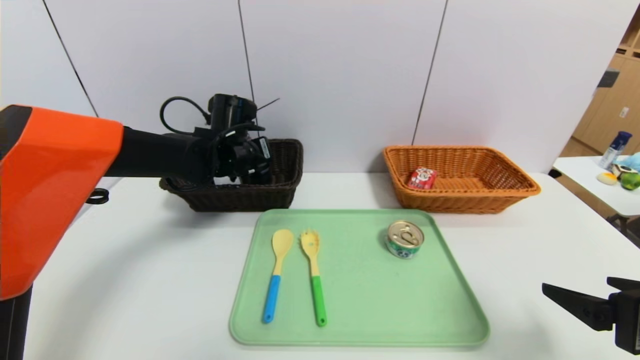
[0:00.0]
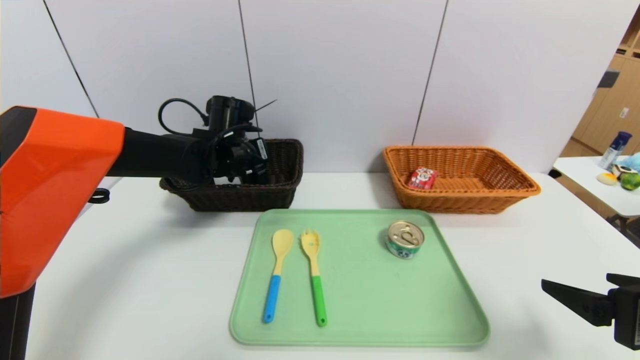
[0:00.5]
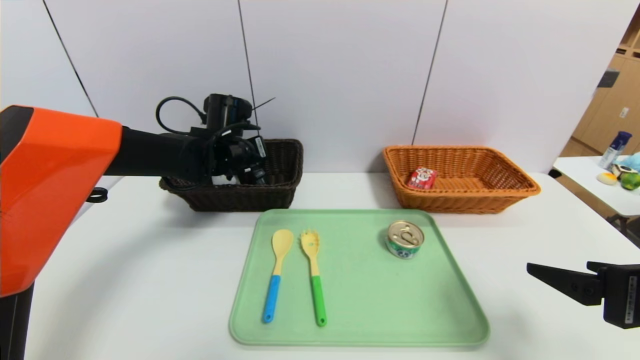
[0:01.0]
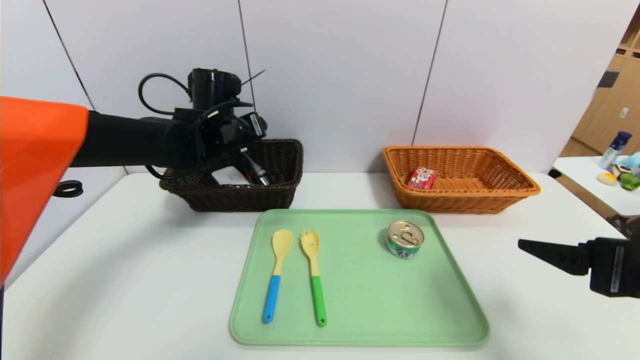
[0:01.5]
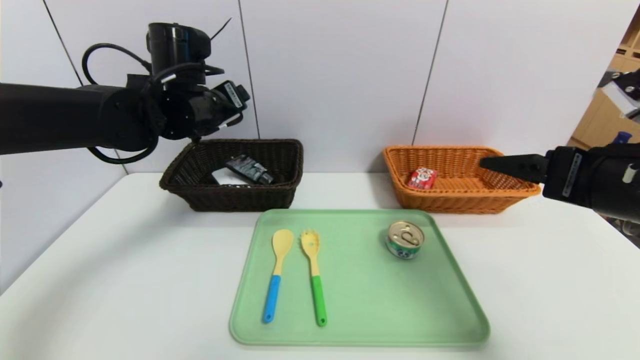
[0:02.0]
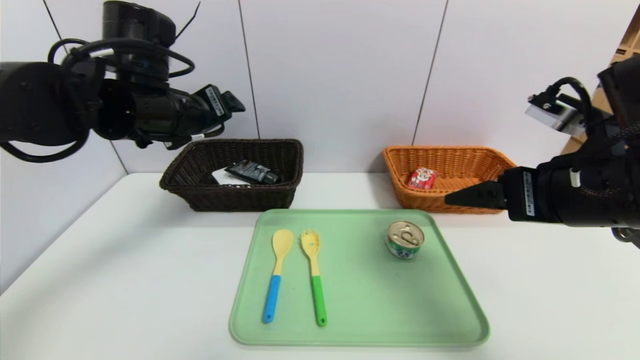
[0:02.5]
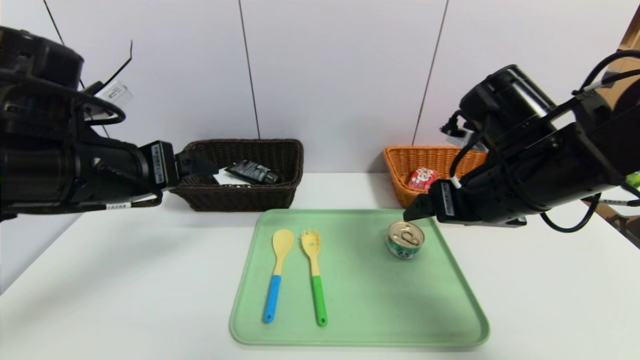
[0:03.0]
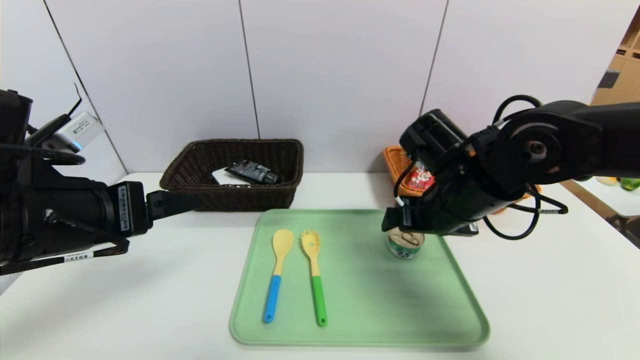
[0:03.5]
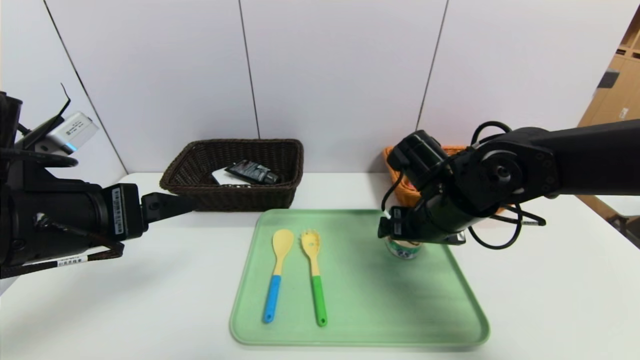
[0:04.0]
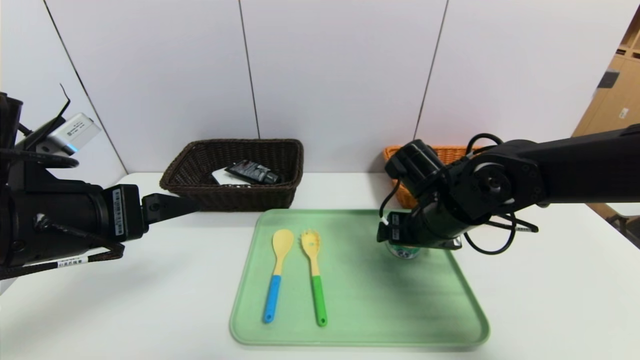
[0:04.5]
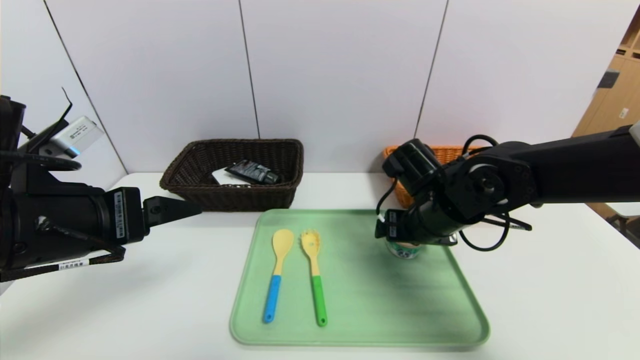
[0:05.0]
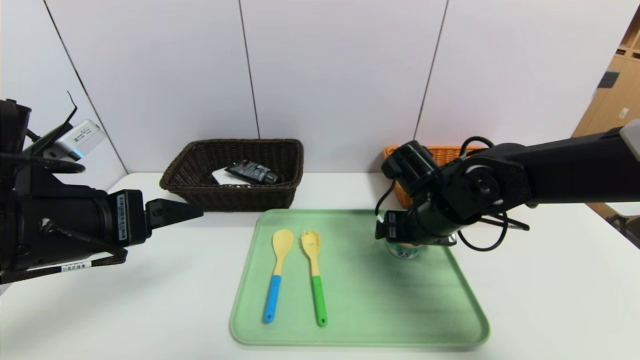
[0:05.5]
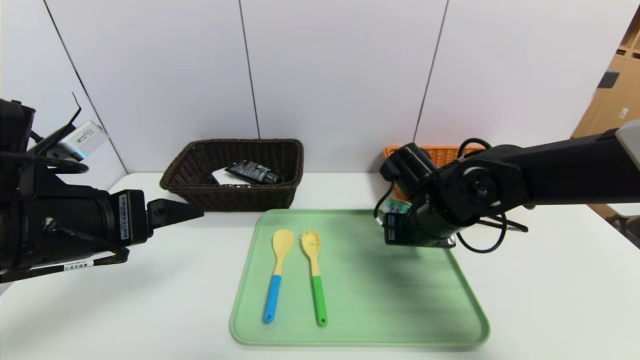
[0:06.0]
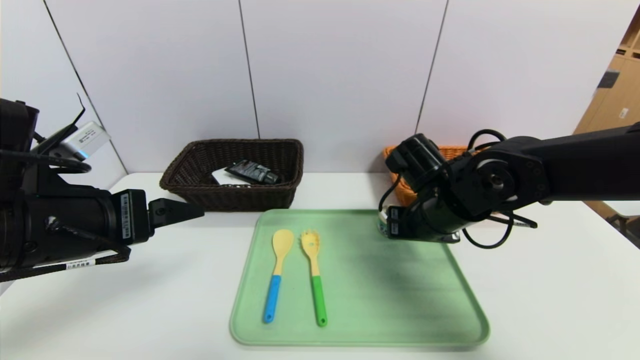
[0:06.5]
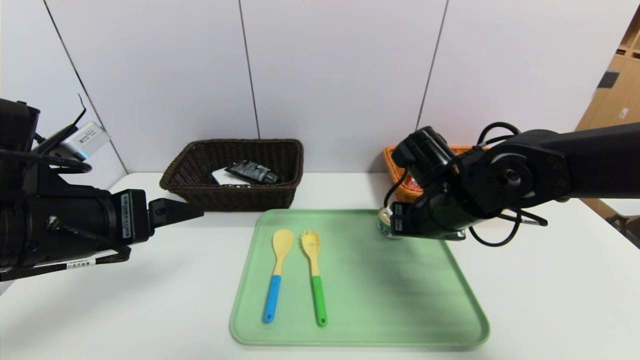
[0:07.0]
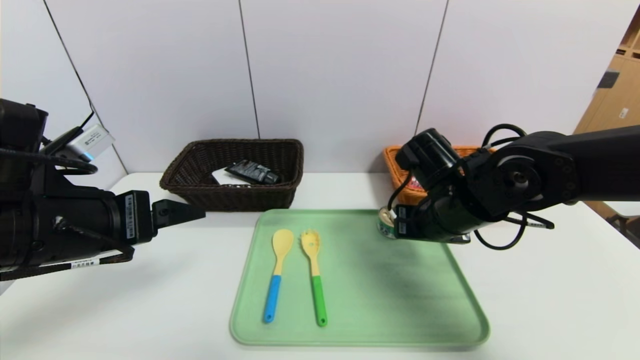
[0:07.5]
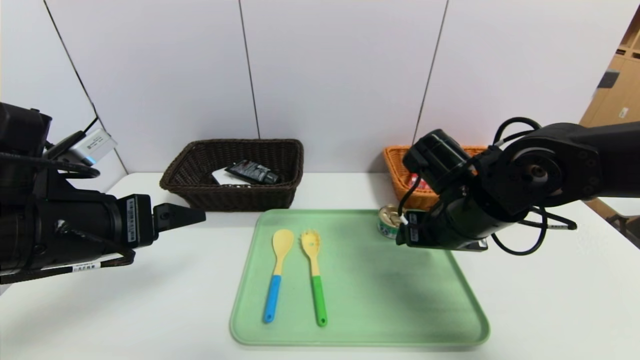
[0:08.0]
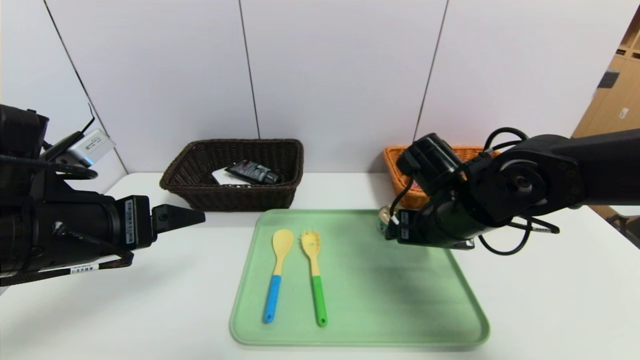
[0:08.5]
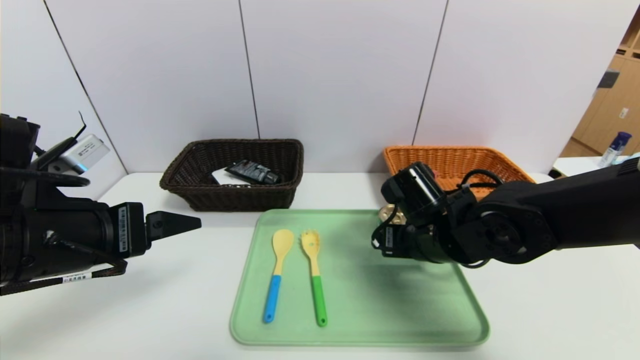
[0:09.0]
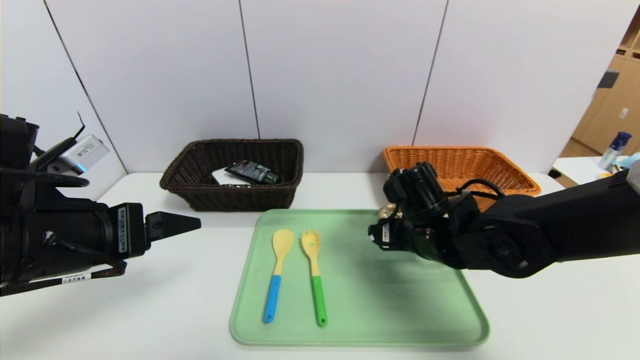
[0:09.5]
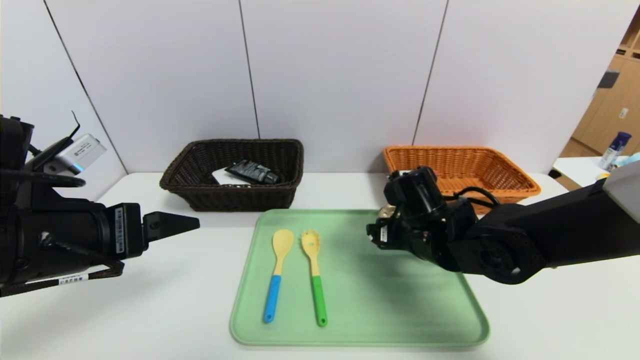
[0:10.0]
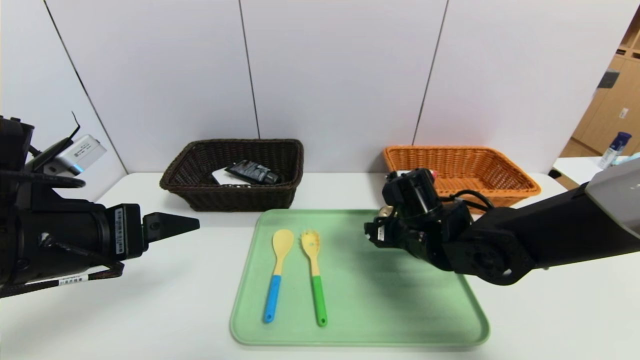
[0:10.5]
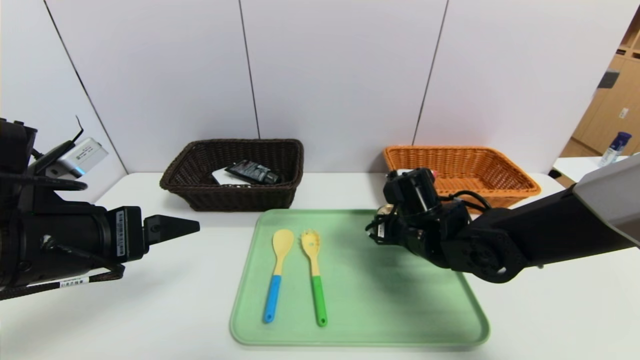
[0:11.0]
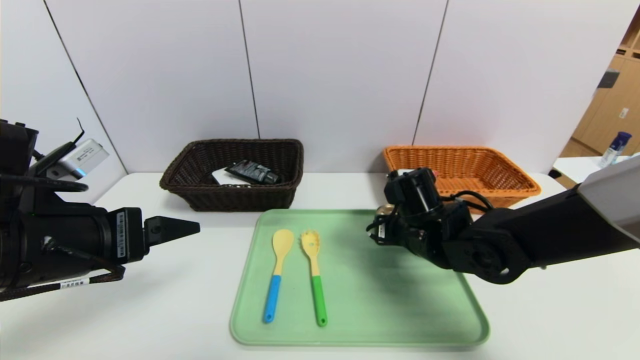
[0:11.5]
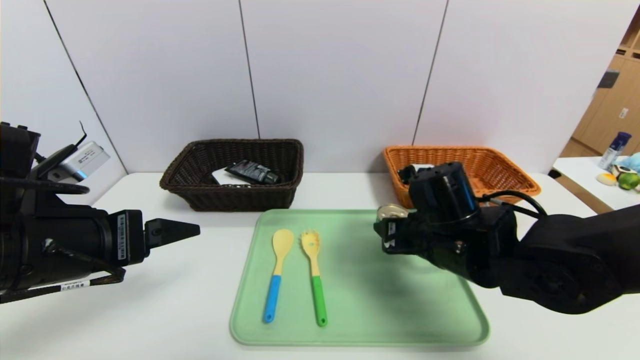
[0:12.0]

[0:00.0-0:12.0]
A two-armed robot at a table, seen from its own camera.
Task of the whole recording: place the food in the right basket with the right gripper, and place the non food items in the left basket with the left gripper.
0:00.0 to 0:02.0: The right gripper is displaced forward and upward by some 10 cm, while the left gripper heads upward and backward, covering some 10 cm, and opens up.
0:02.0 to 0:04.0: The left gripper heads backward, covering roughly 20 cm. Meanwhile the right gripper goes some 20 cm to the left, forward and downward.
0:04.0 to 0:06.0: The right gripper closes up.
0:06.0 to 0:08.0: The right gripper opens its fingers.
0:08.0 to 0:10.0: The right gripper is displaced downward by approximately 5 cm.
0:10.0 to 0:12.0: The right gripper closes its fingers.

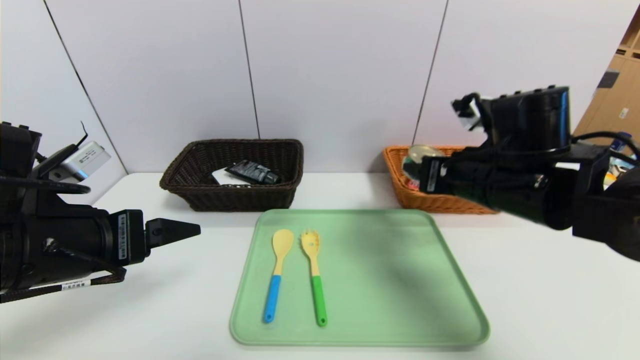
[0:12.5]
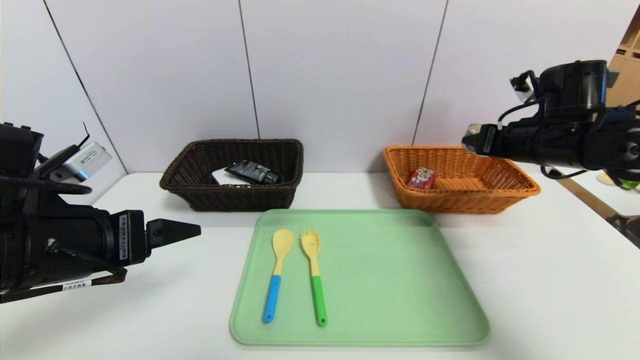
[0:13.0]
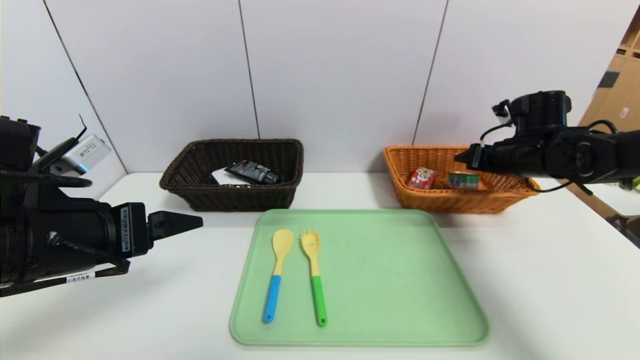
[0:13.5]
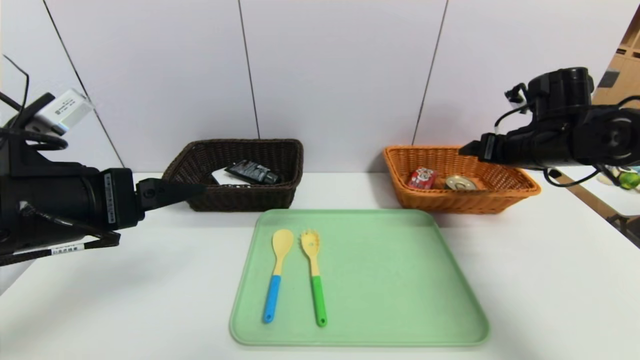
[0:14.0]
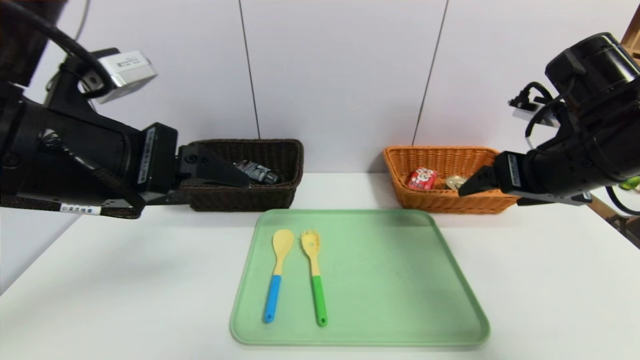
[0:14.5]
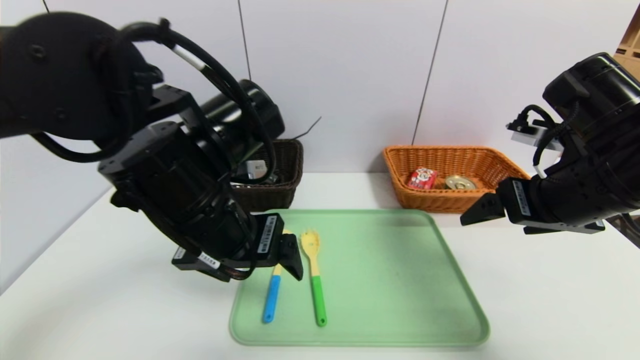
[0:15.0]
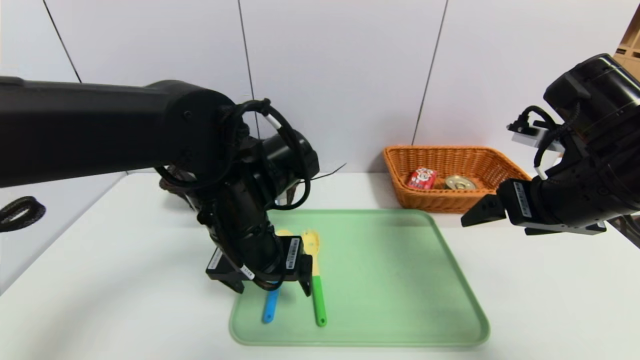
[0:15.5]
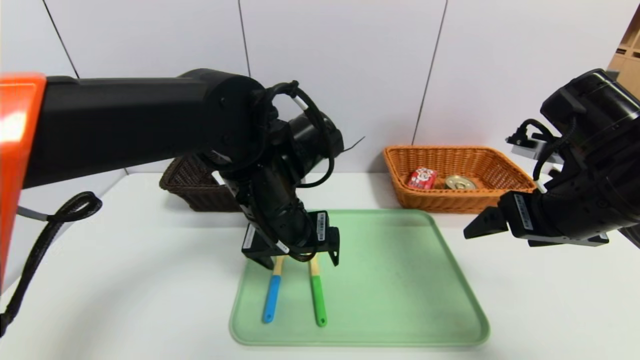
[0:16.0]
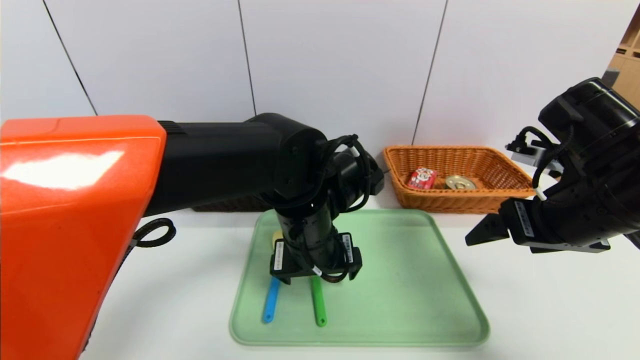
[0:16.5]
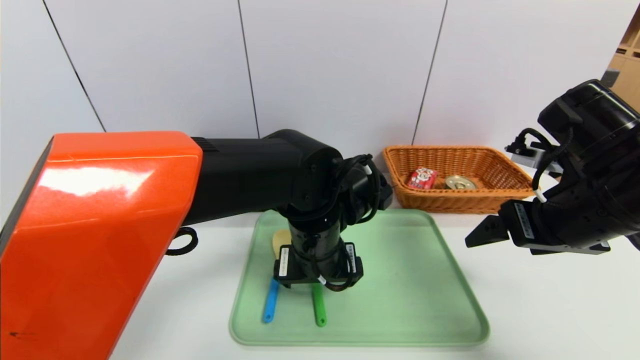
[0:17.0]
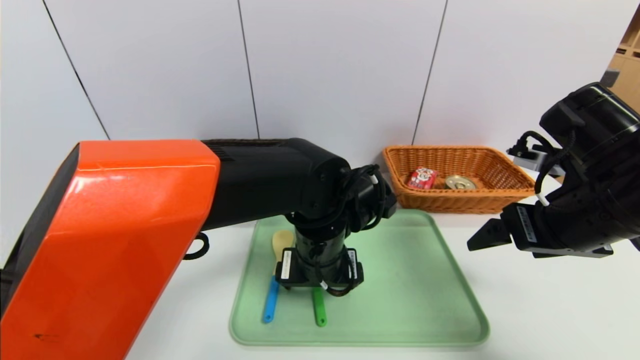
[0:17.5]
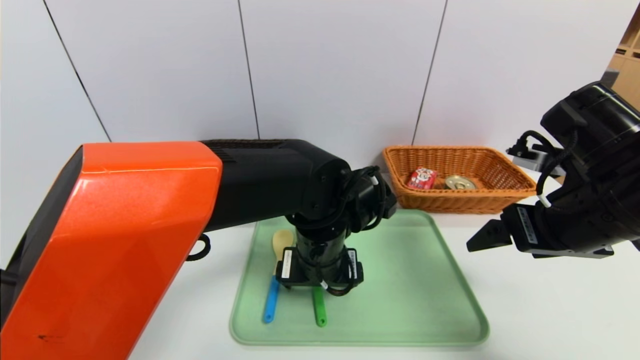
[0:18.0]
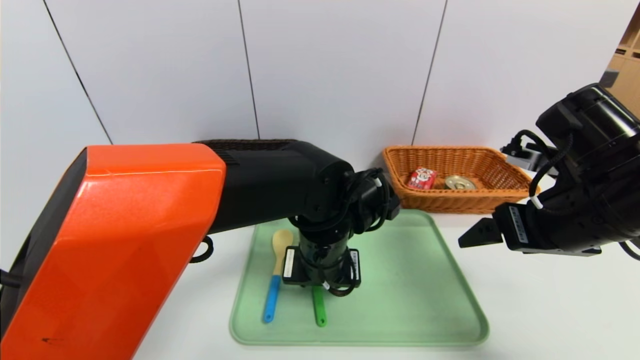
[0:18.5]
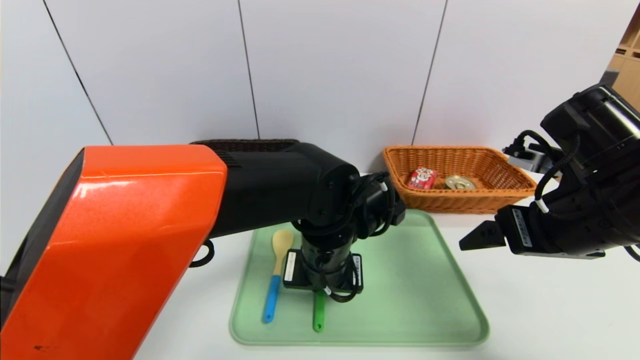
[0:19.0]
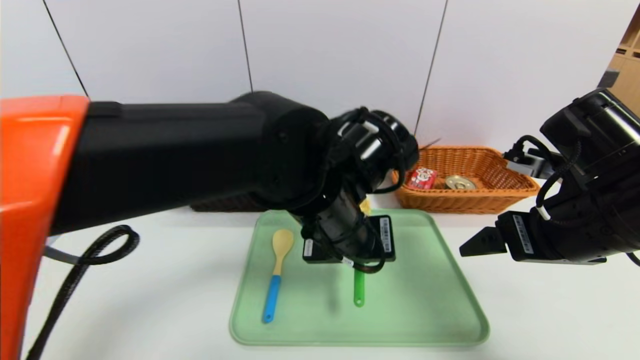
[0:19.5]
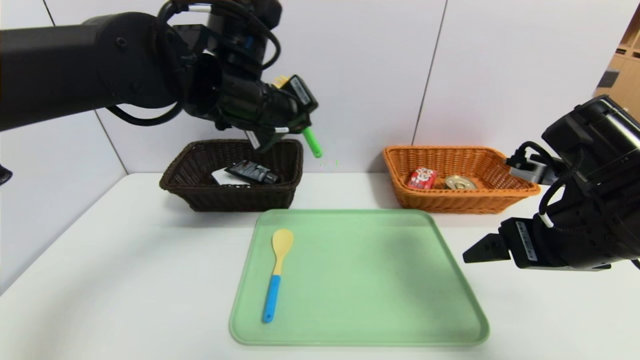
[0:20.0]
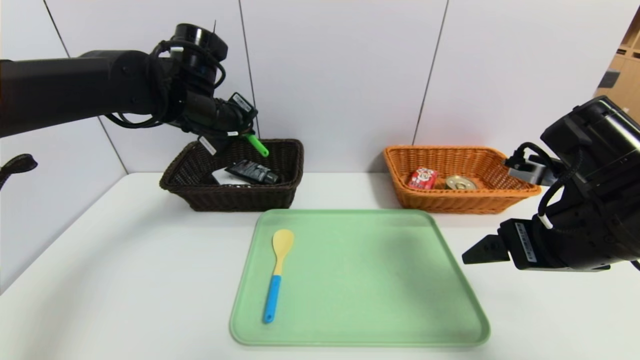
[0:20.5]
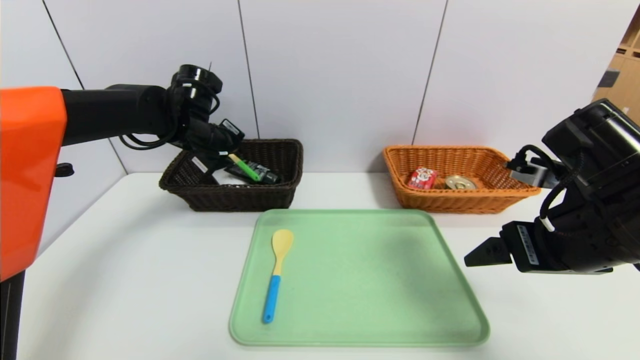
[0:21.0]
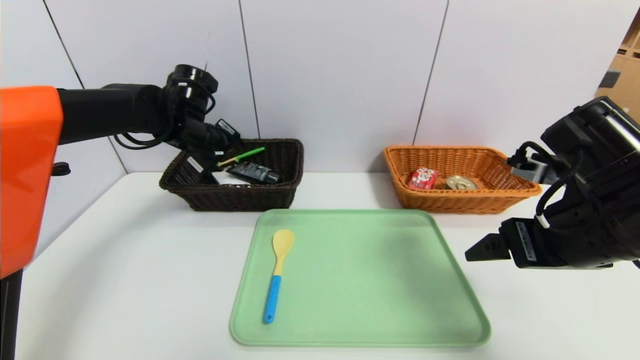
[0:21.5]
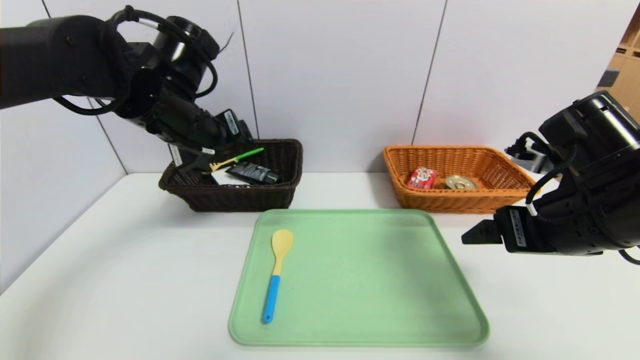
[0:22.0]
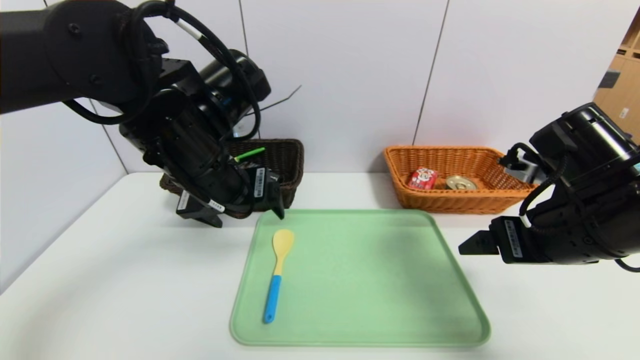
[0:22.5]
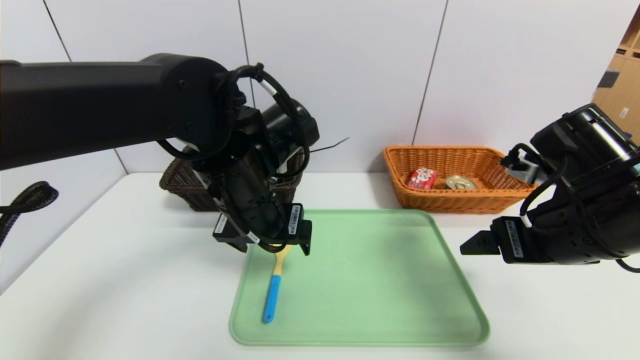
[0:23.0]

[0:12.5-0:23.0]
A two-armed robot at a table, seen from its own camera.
Task of the whole recording: place the food in the right basket with the right gripper, and place the non food items in the left basket with the left gripper.
Step, 0:14.0 to 0:21.0: Grasp the back scratcher and put it in the left basket.
0:12.5 to 0:14.5: The left gripper shifts approximately 10 cm upward and to the right, while the right gripper shifts approximately 5 cm to the right, reaches roughly 10 cm forward, then returns, and opens.
0:14.5 to 0:16.5: The left gripper shifts some 25 cm to the right, downward and forward.
0:16.5 to 0:19.0: The left gripper closes.
0:19.0 to 0:21.0: The left gripper shifts roughly 30 cm to the left and forward.
0:21.0 to 0:23.0: The left gripper is displaced backward and to the right by about 20 cm, and opens up.
